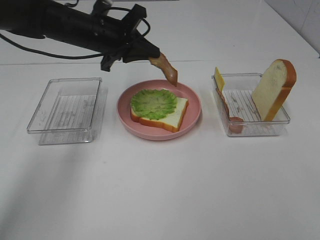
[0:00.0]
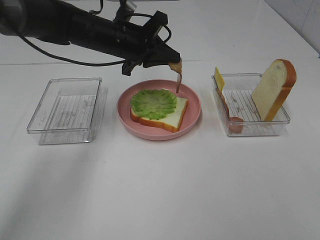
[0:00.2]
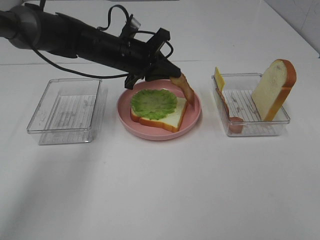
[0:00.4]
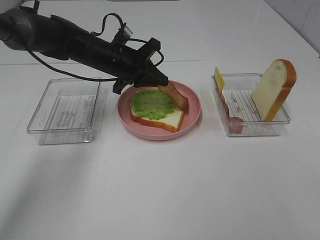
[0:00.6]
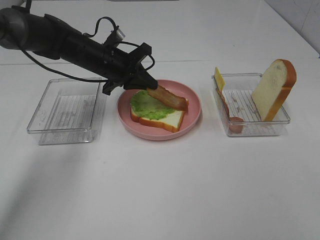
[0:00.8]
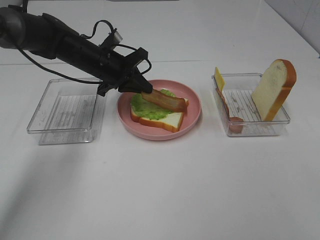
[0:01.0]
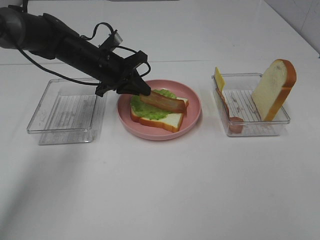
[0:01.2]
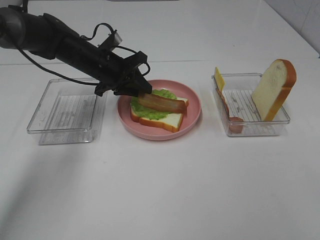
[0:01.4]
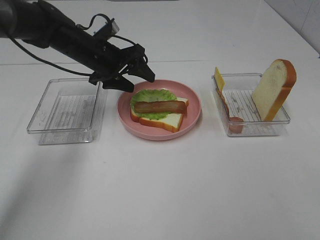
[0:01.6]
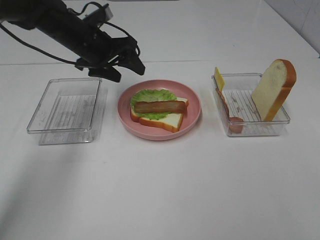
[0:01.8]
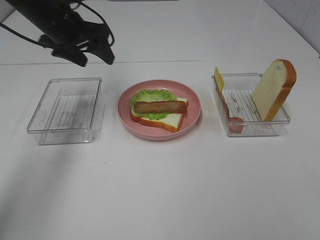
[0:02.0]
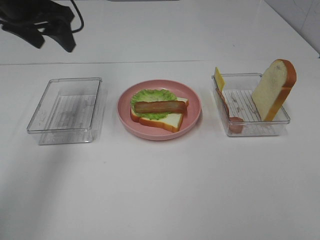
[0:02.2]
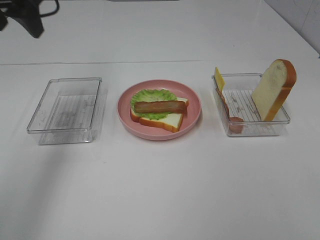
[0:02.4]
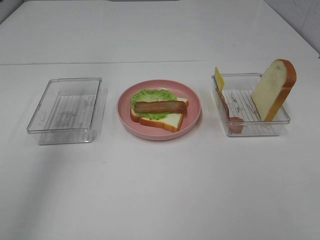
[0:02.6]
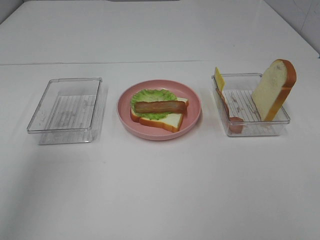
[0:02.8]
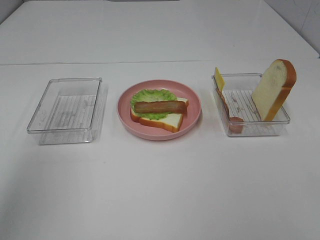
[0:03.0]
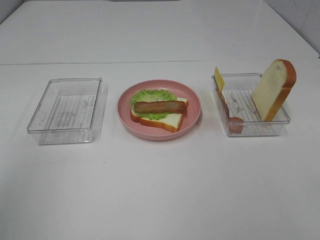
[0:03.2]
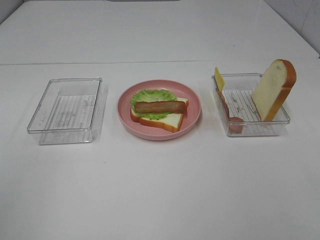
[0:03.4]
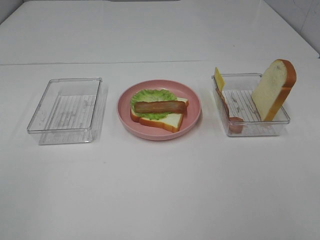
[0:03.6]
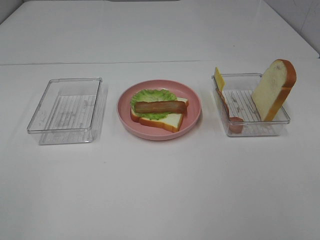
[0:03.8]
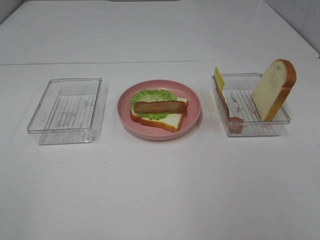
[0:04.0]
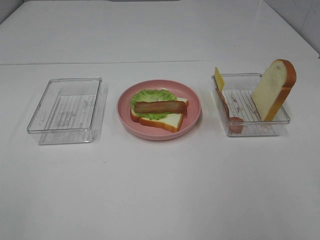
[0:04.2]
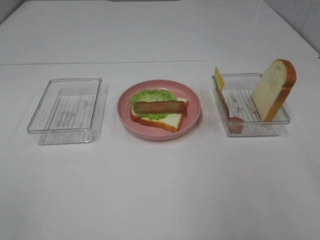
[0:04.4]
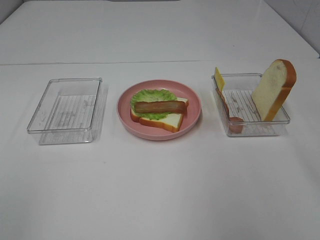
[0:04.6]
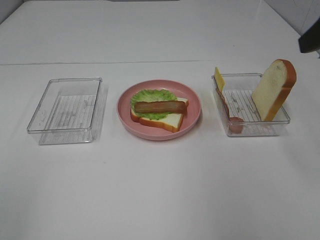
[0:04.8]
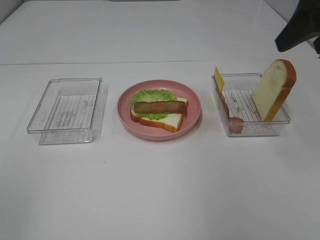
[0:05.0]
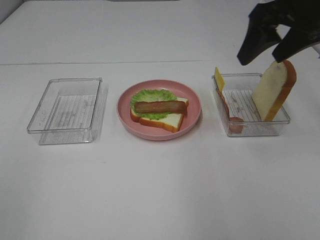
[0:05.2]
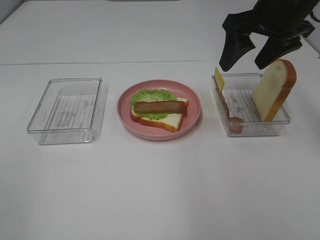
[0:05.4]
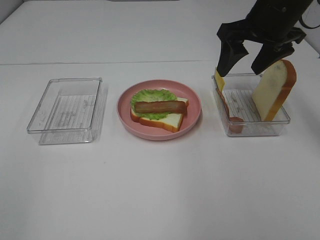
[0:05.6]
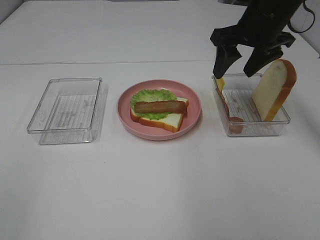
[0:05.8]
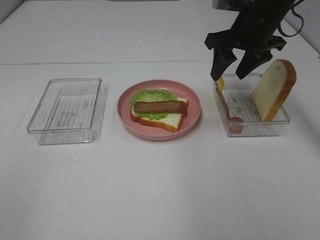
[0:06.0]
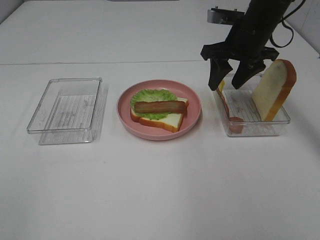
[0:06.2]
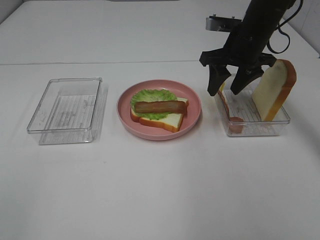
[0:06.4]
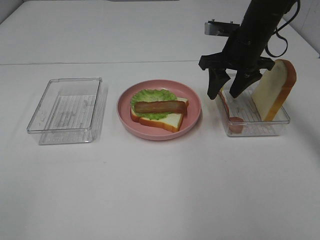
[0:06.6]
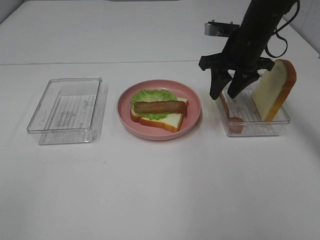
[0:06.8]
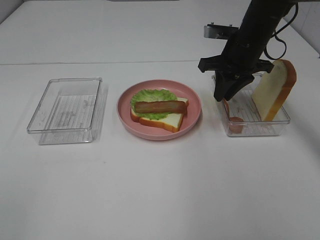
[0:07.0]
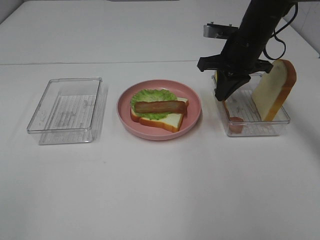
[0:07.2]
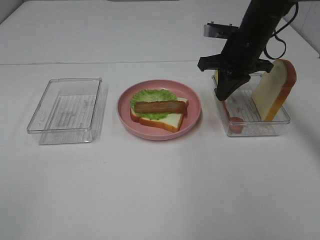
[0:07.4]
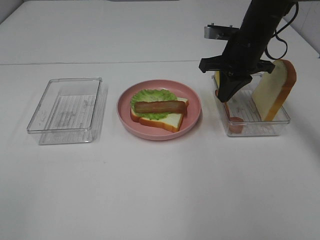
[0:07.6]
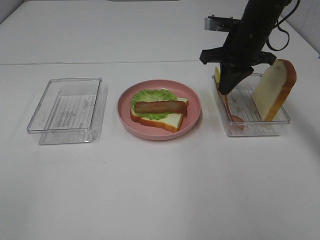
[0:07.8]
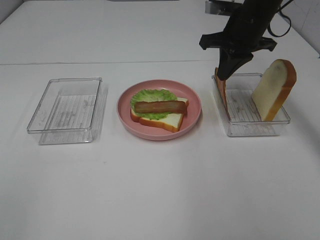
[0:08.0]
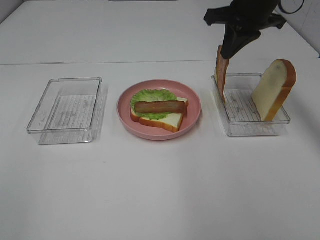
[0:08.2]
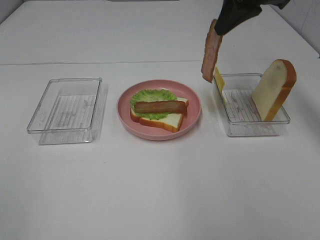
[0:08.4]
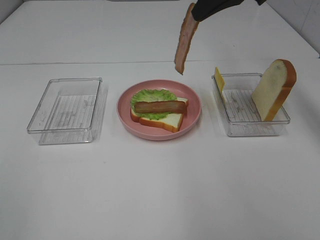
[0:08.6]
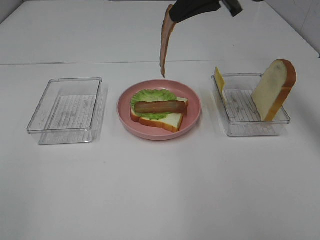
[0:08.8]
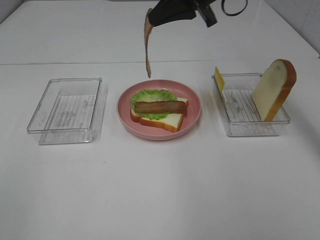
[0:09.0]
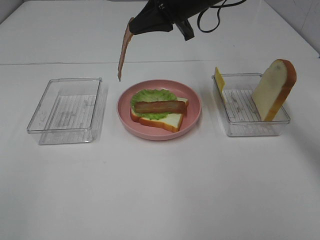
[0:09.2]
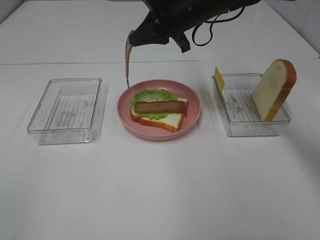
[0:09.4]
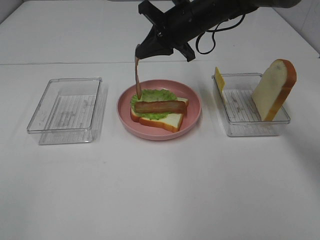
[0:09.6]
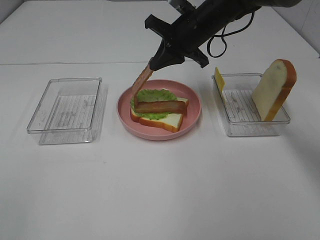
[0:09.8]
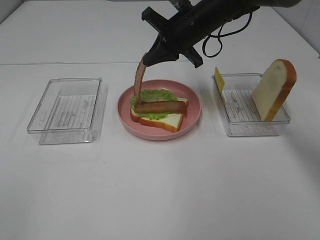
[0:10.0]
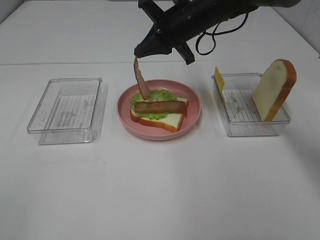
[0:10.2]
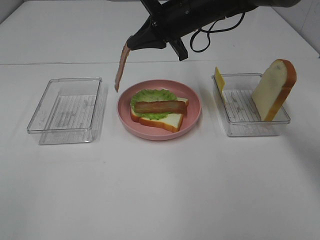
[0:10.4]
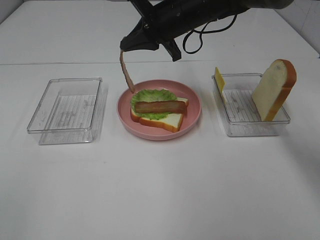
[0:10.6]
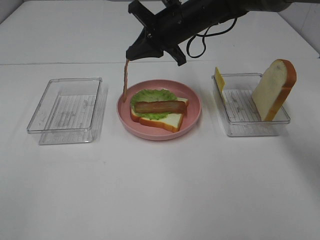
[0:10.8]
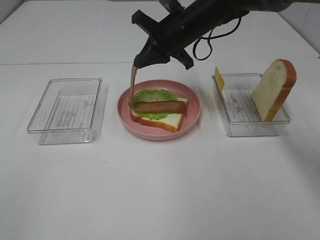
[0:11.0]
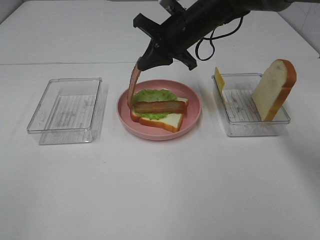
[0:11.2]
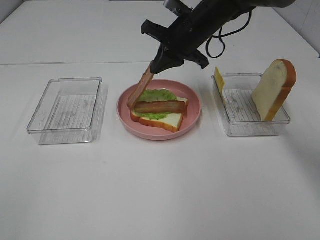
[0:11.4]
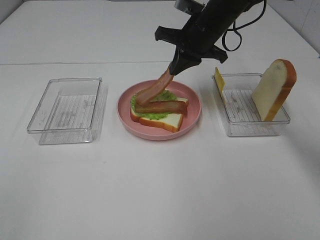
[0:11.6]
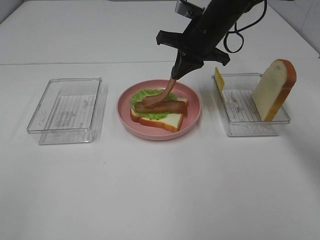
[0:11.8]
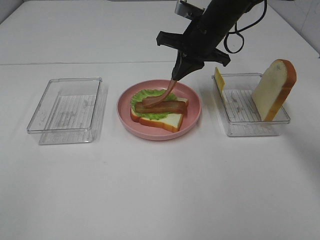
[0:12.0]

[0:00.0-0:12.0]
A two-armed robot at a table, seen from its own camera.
Task of the whole recording: Make sandwiches.
Step, 0:01.8 to 0:07.2: Right hand:grab the bacon.
0:00.0 to 0:01.6: The left gripper changes place by about 5 cm, and opens up.
0:01.6 to 0:03.0: The left gripper travels backward, upward and to the left by approximately 40 cm.
0:04.4 to 0:06.0: The right gripper travels forward by approximately 30 cm.
0:06.0 to 0:07.6: The right gripper closes.
0:07.6 to 0:09.0: The right gripper travels upward and to the left by about 15 cm.
0:09.0 to 0:10.4: The right gripper goes some 5 cm downward.

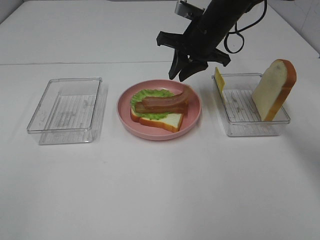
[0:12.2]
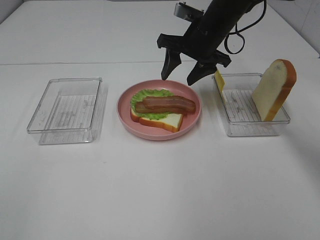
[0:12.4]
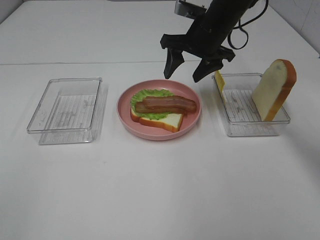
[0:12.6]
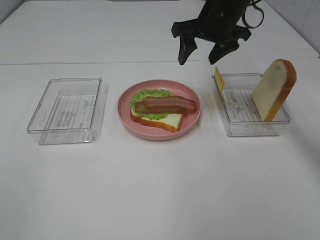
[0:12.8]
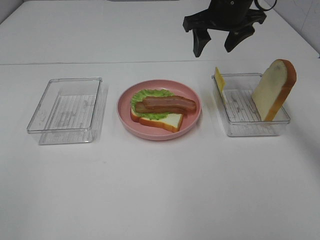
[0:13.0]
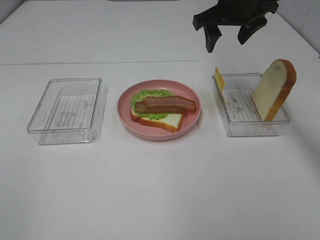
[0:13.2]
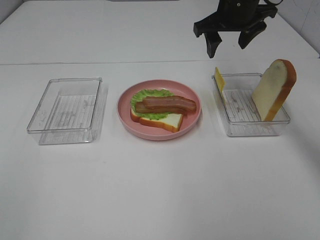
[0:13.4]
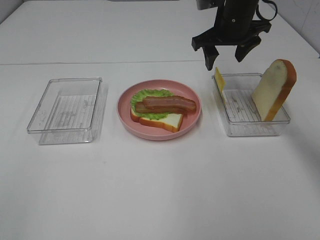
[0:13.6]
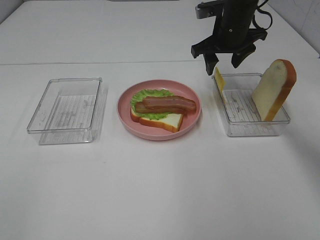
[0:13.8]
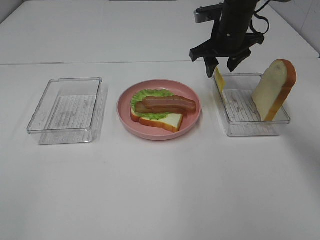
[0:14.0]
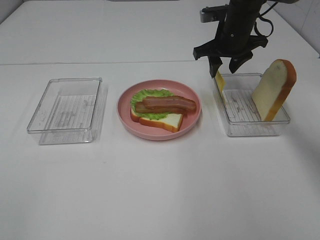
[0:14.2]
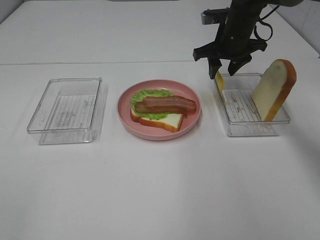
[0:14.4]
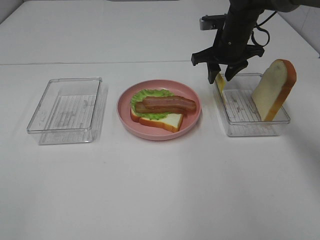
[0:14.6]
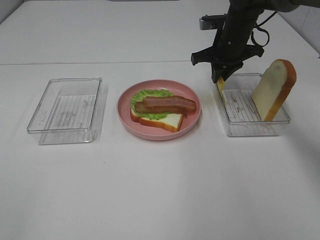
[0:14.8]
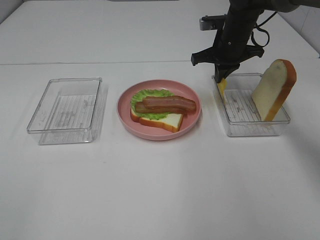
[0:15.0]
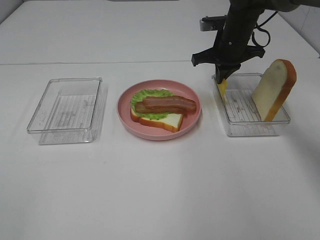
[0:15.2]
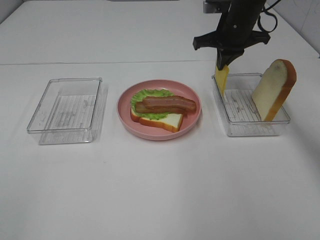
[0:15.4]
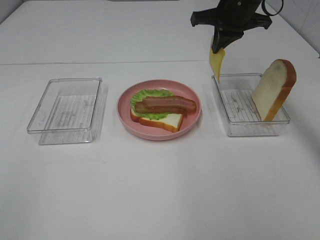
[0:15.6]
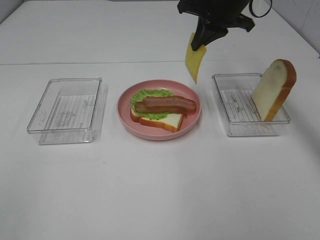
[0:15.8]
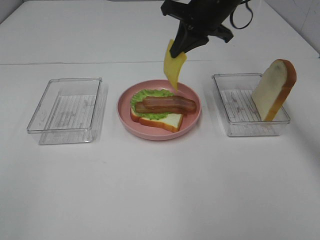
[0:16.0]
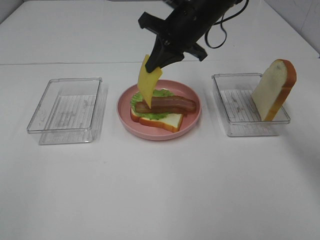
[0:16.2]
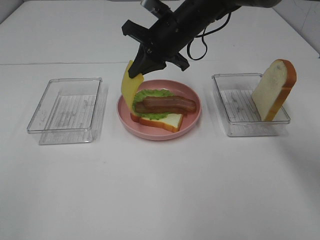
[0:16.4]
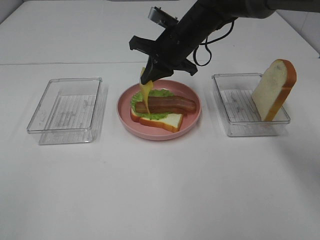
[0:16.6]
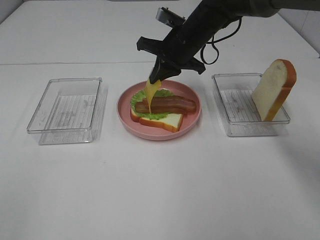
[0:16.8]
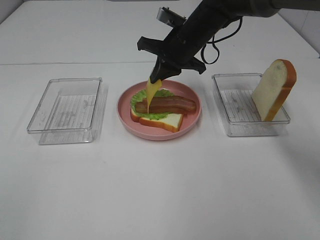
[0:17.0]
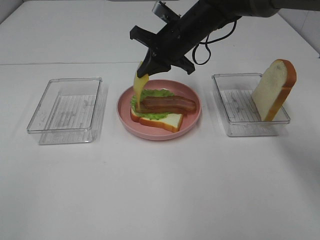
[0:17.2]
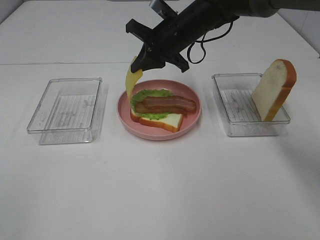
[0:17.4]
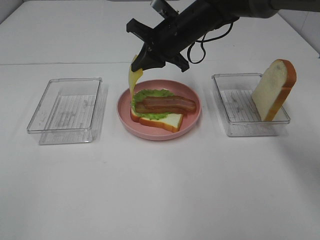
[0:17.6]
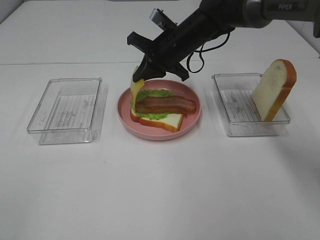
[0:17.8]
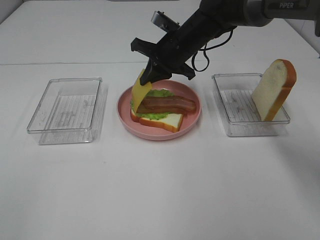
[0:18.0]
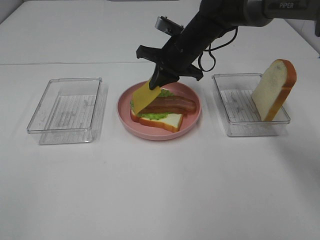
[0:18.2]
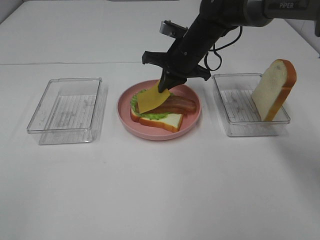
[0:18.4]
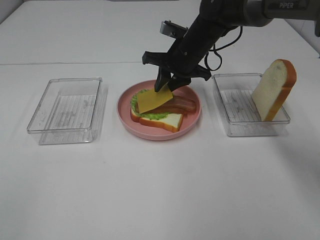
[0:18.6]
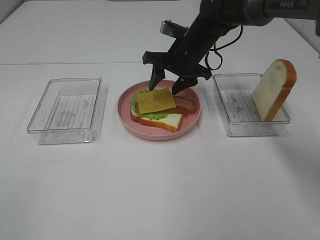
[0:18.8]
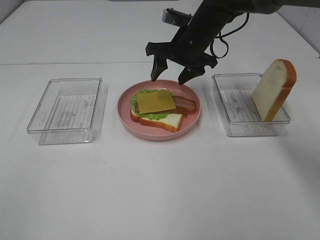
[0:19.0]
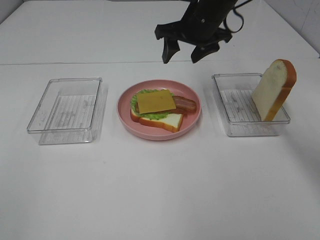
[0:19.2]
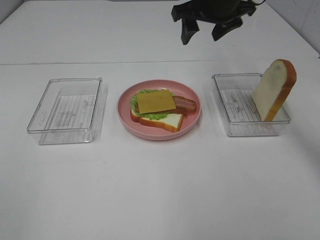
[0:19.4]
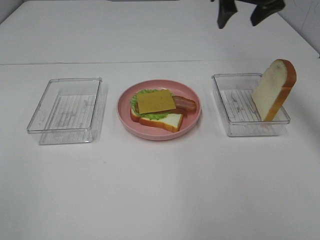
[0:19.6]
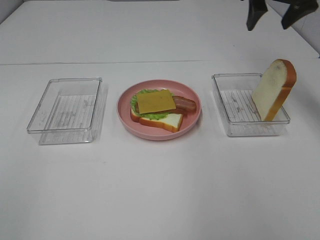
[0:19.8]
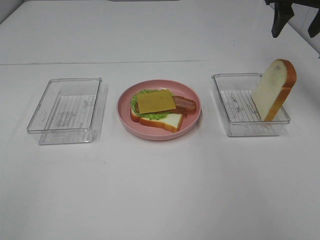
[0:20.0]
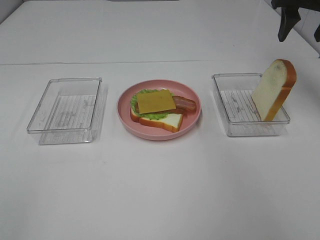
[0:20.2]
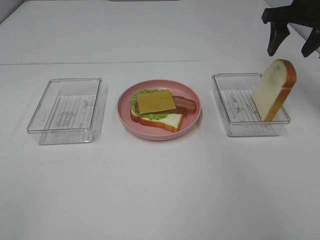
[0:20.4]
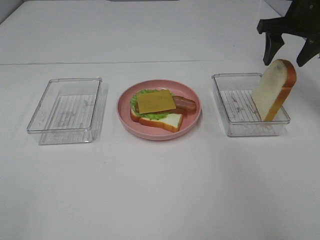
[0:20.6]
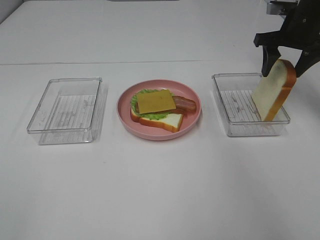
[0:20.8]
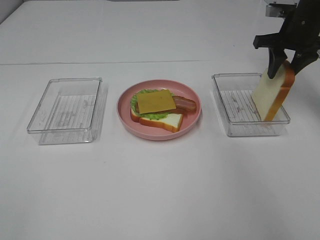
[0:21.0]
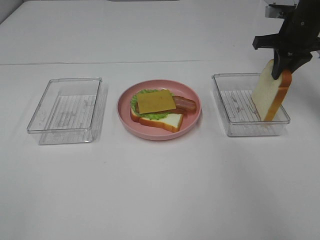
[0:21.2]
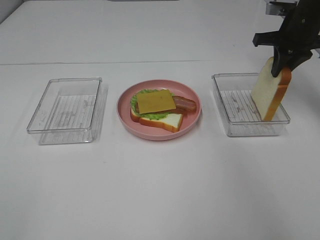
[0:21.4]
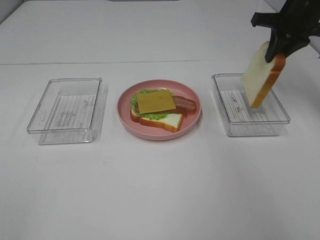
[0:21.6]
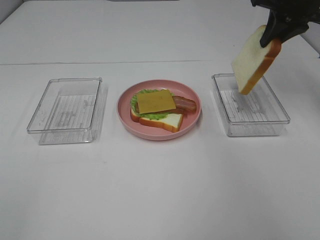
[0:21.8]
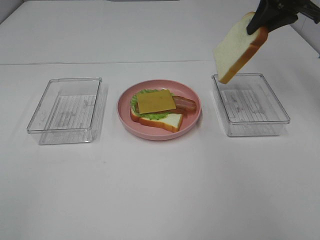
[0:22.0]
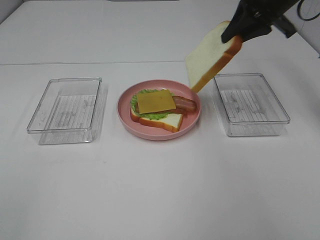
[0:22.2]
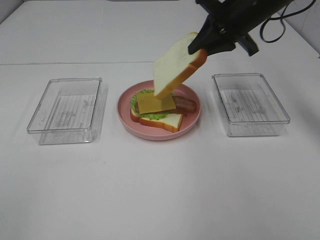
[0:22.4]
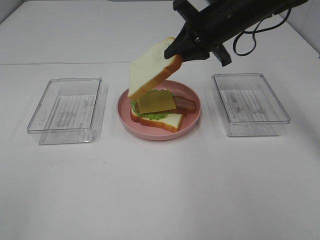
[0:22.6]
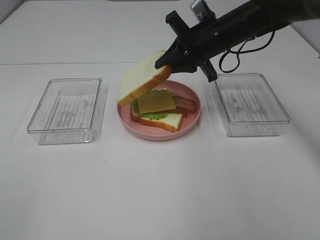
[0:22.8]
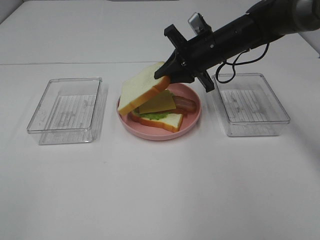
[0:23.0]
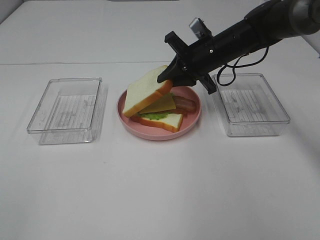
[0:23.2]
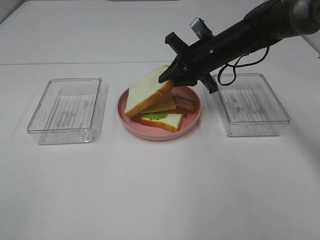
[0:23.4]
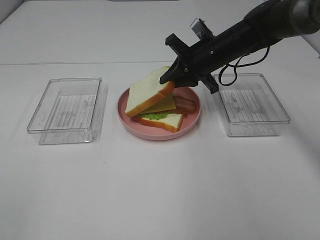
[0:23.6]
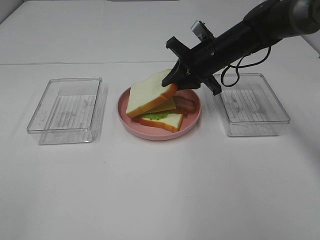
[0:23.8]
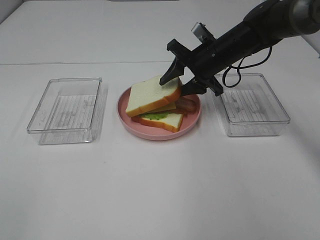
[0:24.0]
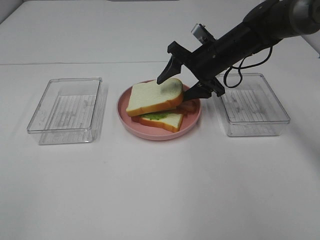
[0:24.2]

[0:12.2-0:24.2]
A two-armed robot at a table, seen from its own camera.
Task of the whole recording: Make sandwiches.
Step, 0:13.0 to 0:14.8: Right hand:grab the cheese slice.
Step, 0:15.0 to 0:18.8: Right hand:place the cheese slice on top of the bacon.
Step, 0:19.0 to 0:21.4: Right hand:grab the bread slice.
0:12.2 to 0:13.8: The right gripper moves some 5 cm, and opens its fingers.
0:13.8 to 0:15.2: The right gripper closes its fingers.
0:15.2 to 0:16.6: The right gripper goes approximately 10 cm to the left.
0:16.6 to 0:18.2: The grippers make only small movements.
0:18.2 to 0:19.8: The right gripper moves to the right and upward, approximately 25 cm, and opens its fingers.
0:19.8 to 0:21.2: The right gripper moves downward, approximately 10 cm, and closes its fingers.
0:21.2 to 0:22.6: The right gripper goes approximately 15 cm to the left.
0:22.6 to 0:24.2: The right gripper goes about 10 cm downward, and opens.
